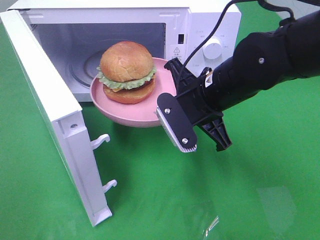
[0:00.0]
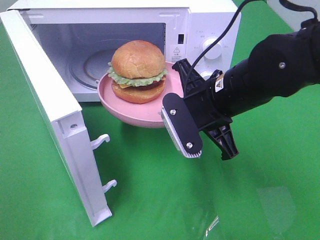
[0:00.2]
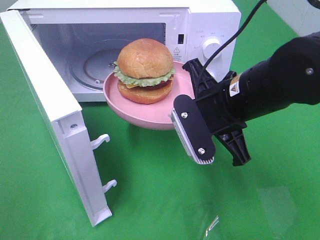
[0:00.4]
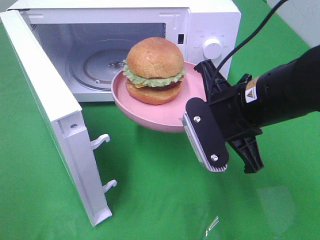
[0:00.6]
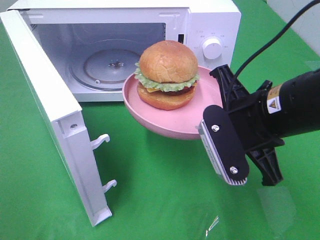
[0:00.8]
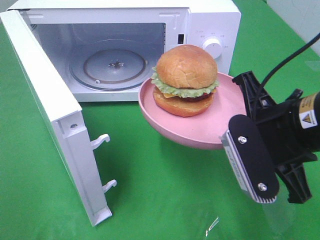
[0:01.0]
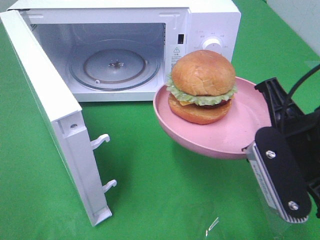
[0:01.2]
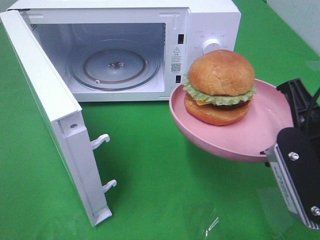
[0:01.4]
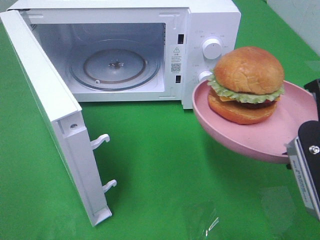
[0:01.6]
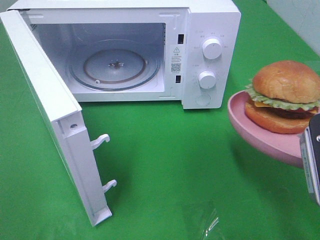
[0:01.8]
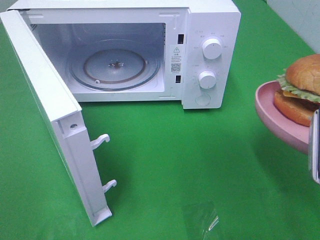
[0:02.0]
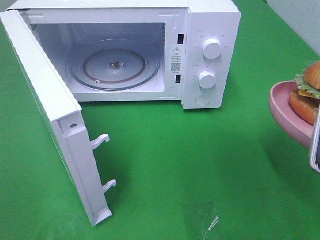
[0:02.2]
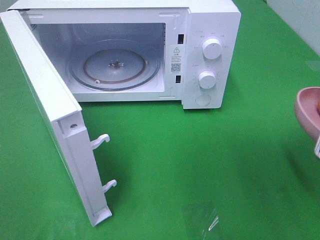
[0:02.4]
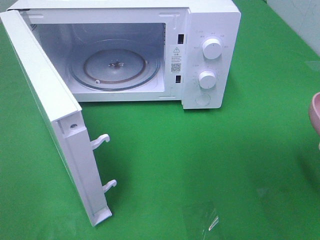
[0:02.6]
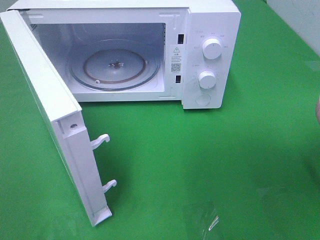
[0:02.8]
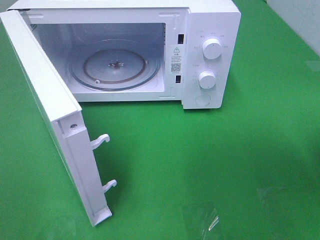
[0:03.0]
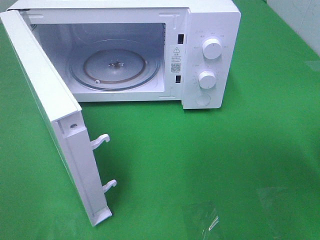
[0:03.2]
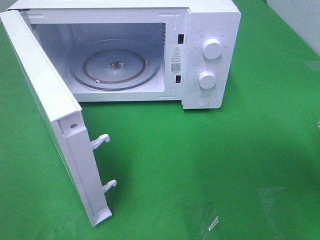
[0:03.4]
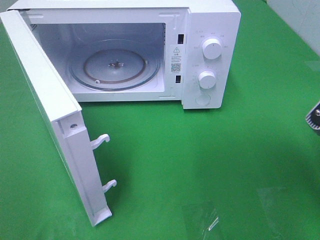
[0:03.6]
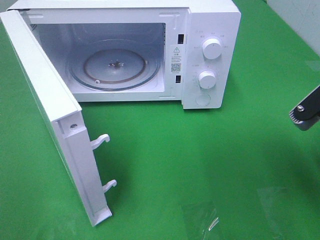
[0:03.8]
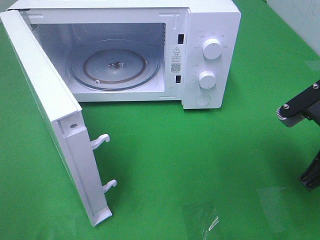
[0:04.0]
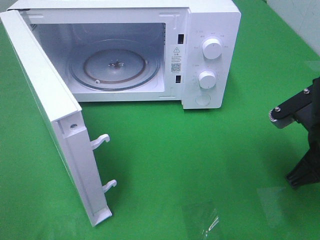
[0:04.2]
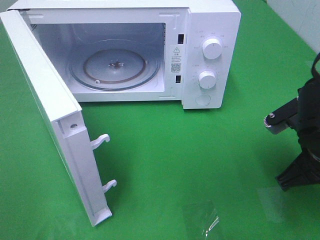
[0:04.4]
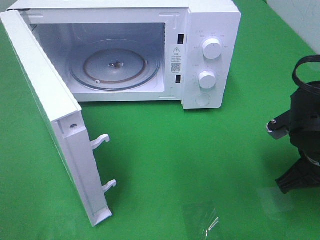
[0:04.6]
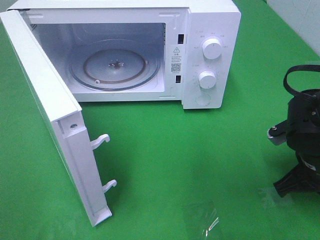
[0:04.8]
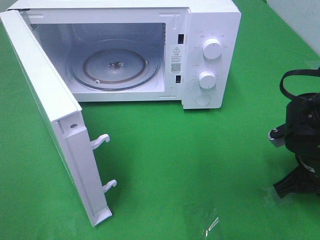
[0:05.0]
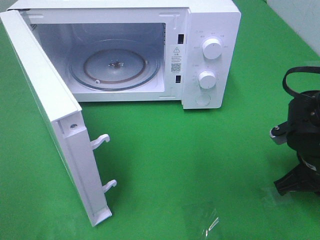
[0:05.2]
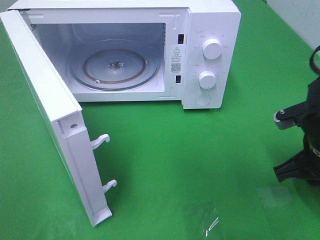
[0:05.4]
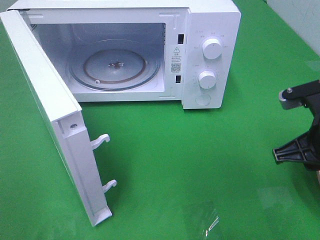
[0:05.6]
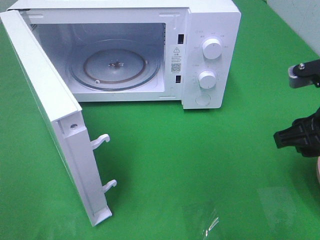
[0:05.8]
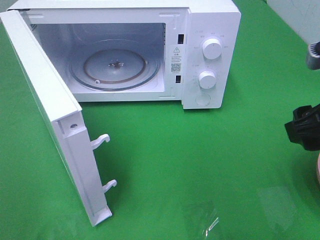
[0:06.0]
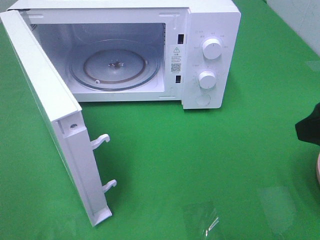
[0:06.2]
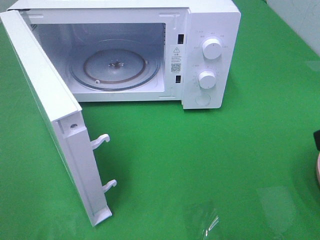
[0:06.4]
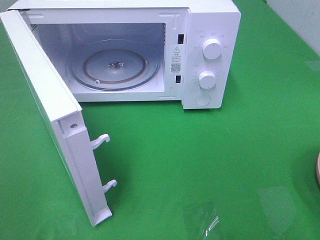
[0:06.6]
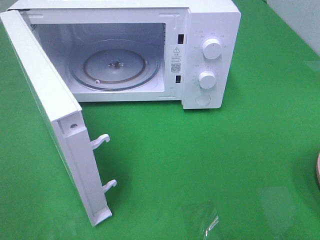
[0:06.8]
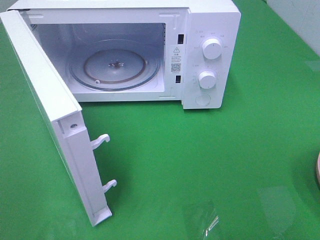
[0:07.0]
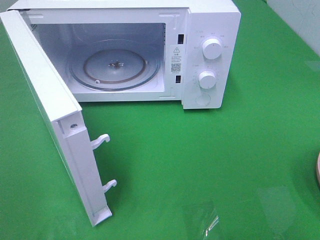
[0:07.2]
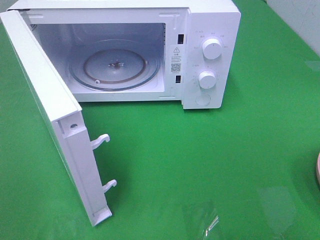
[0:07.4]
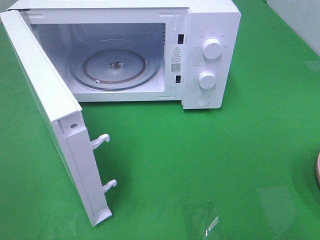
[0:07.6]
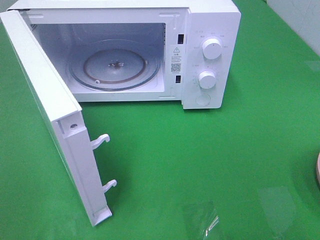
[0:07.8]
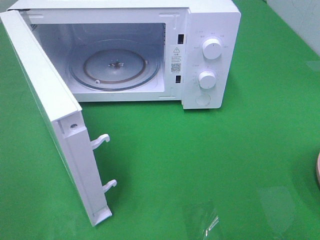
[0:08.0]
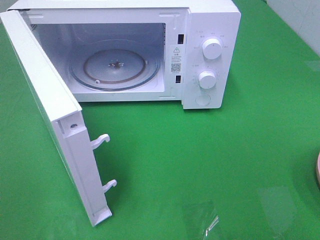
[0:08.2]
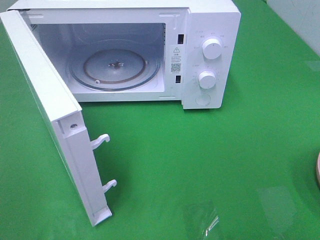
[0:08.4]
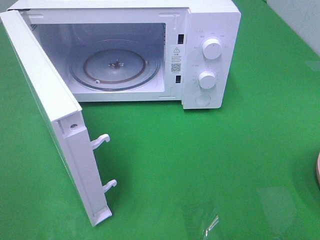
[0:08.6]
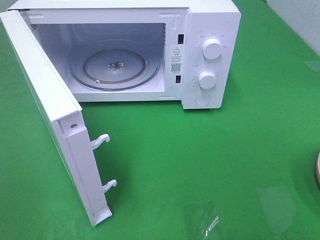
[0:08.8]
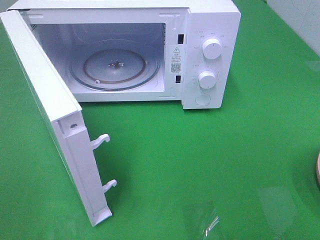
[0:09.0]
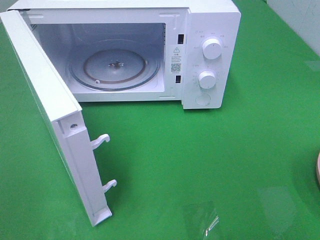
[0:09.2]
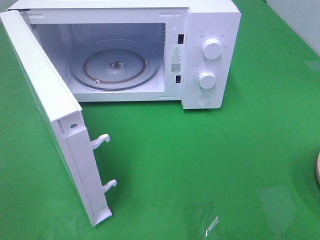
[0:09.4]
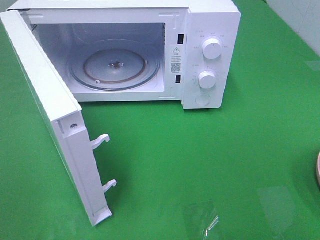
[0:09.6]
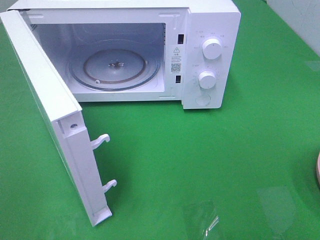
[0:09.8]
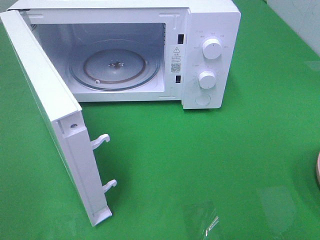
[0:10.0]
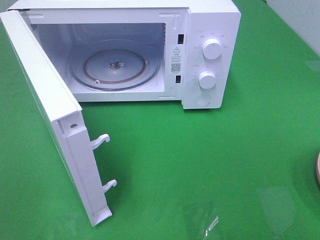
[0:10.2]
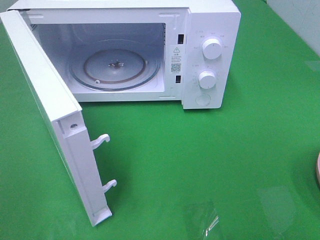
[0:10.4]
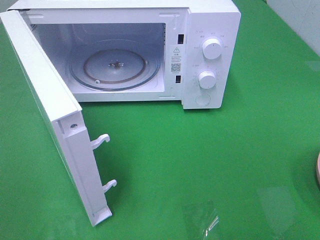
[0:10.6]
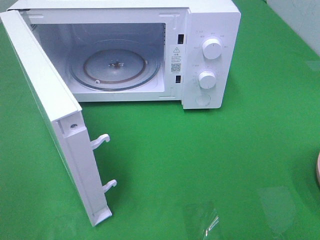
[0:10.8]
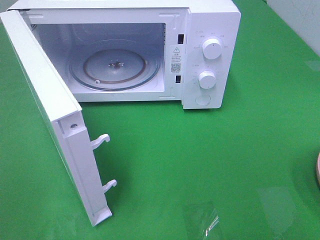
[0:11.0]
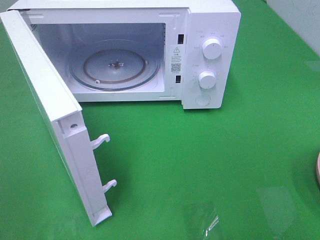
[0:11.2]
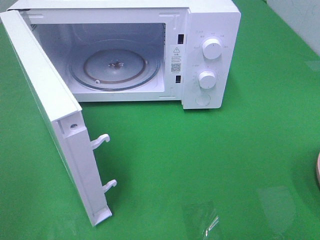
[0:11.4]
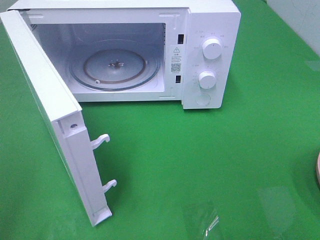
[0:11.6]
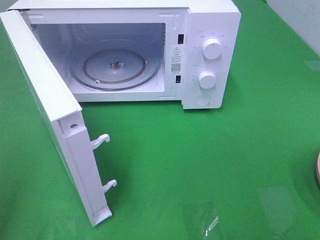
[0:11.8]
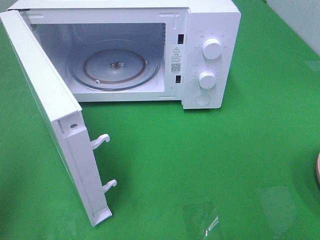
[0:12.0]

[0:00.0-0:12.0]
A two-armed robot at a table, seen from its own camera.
Task of the whole recording: Heat the burger.
Step, 0:00.0 to 0:05.2: Right hand: place the plate on the table.
0:00.0 to 0:01.6: The right gripper moves backward and to the right, about 20 cm.
0:03.0 to 0:04.4: The right gripper moves downward and forward, approximately 10 cm.
0:04.4 to 0:06.0: The right gripper is displaced upward by approximately 10 cm, and opens.
0:06.0 to 0:07.6: The right gripper shifts roughly 15 cm backward and to the right.
0:09.0 to 0:10.4: Both grippers stay about where they are.

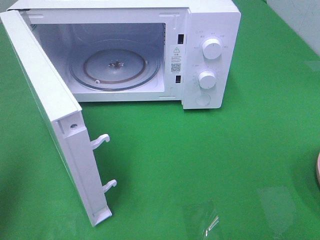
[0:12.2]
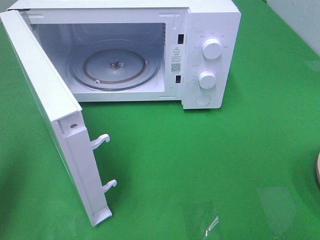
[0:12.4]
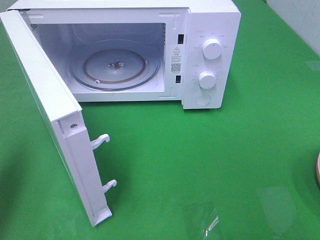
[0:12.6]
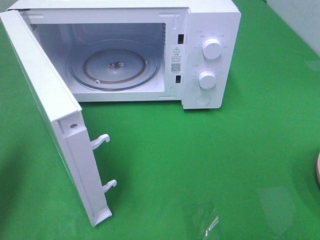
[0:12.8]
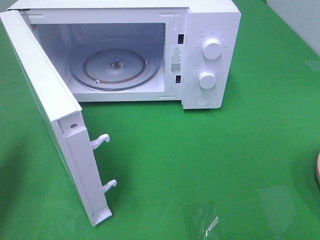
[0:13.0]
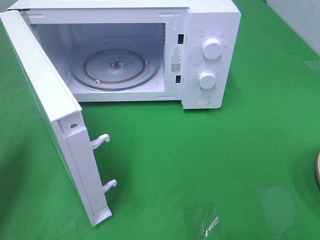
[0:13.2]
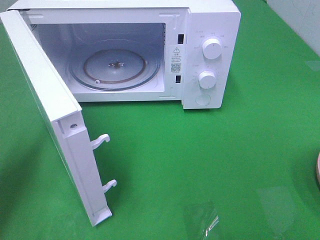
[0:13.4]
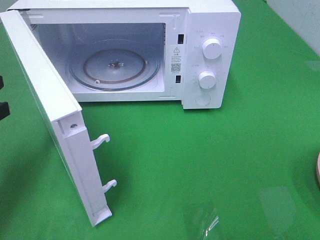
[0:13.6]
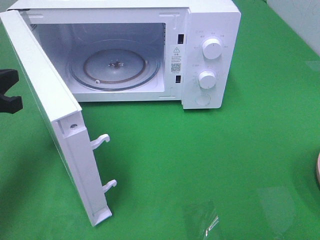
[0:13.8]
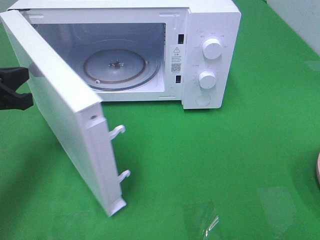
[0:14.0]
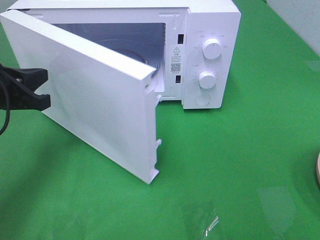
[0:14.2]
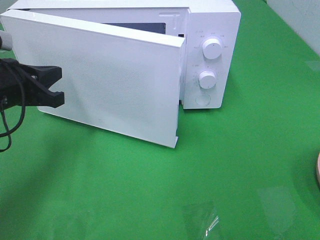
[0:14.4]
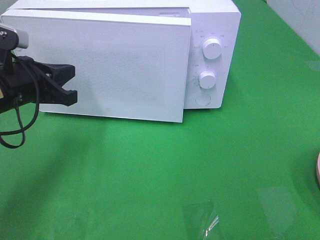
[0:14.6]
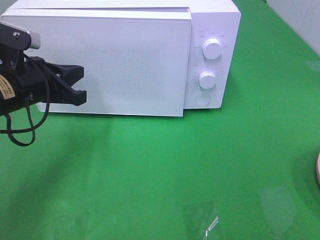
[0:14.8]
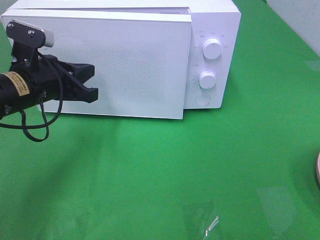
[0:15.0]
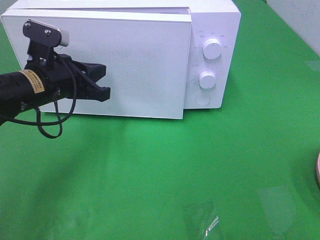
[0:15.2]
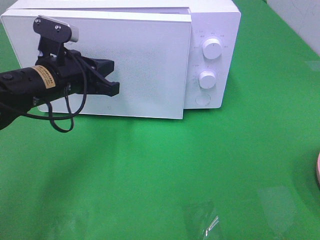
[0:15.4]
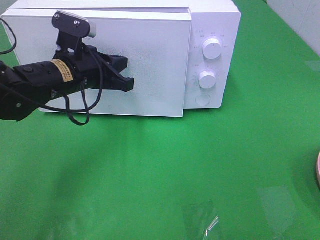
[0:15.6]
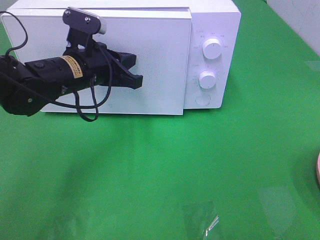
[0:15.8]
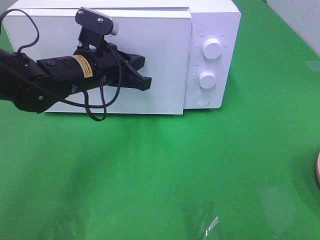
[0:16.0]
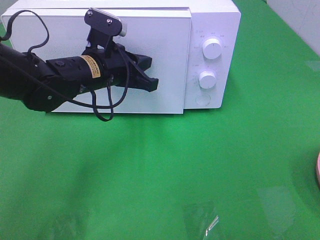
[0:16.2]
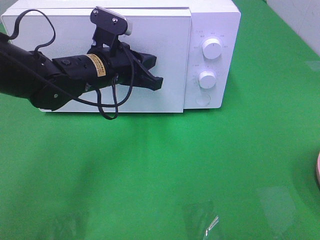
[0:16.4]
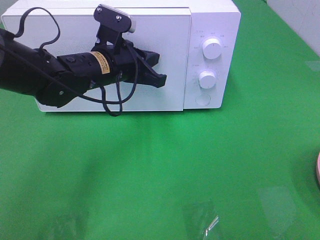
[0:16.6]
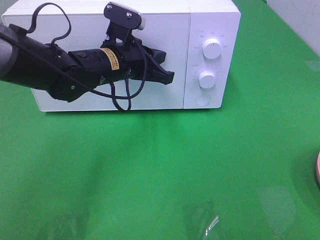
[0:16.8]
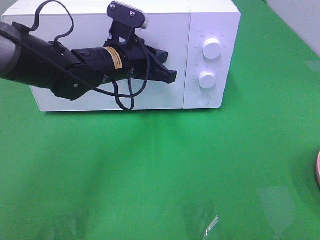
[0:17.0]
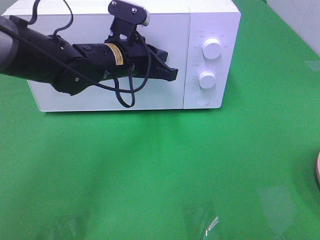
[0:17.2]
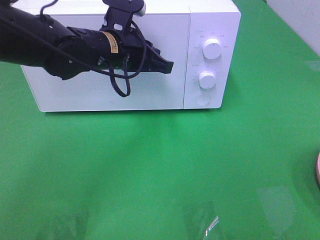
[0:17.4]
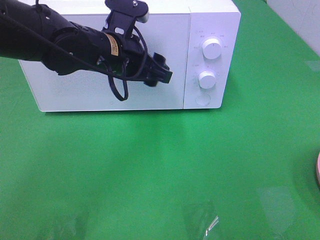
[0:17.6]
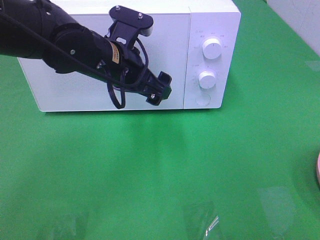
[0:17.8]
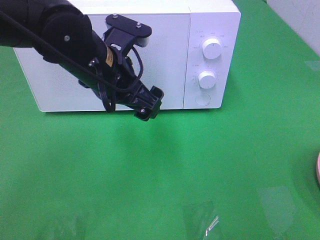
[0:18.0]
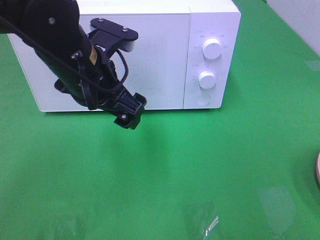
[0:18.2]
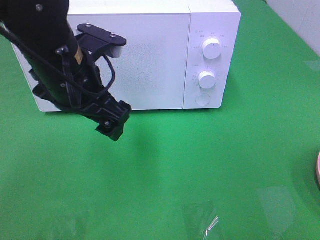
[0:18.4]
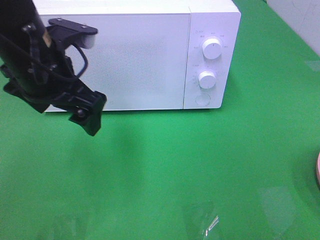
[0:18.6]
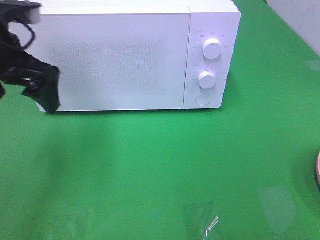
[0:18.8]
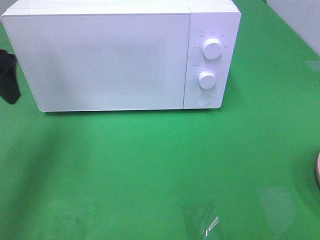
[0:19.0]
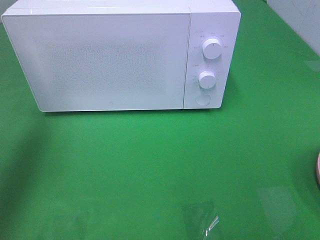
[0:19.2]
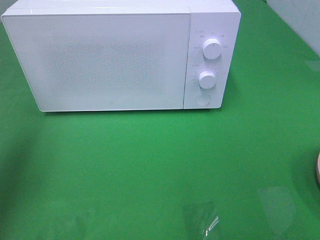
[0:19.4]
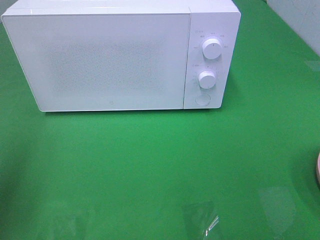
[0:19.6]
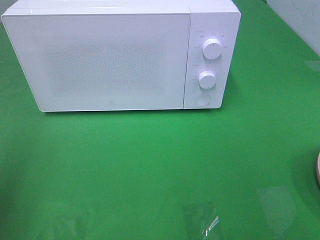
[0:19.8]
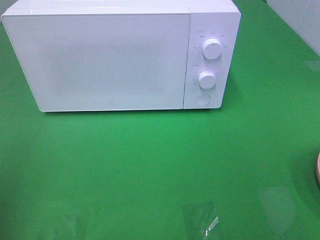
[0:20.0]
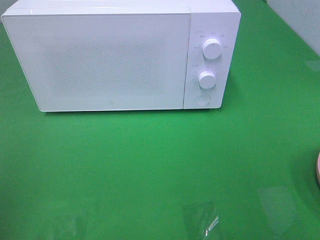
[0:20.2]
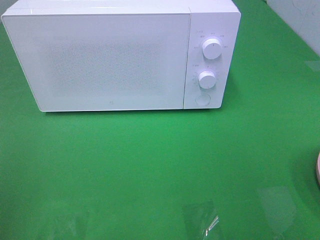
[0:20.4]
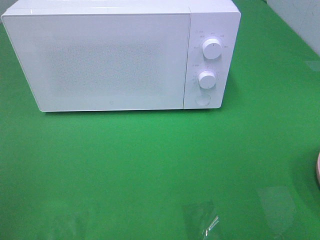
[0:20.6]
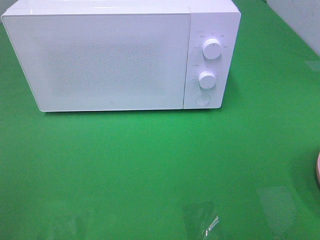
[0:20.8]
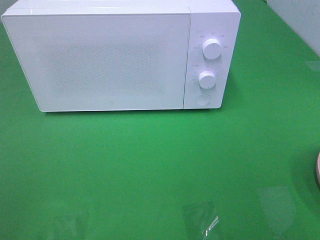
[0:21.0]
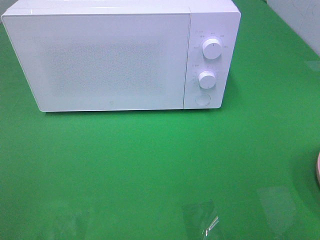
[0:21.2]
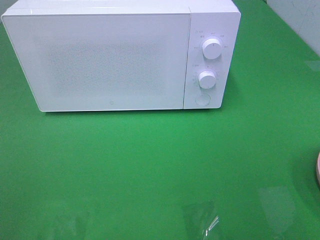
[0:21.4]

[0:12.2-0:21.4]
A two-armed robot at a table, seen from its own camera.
Task of the whole recording: Heat the burger.
Step, 0:12.2 to 0:17.4: Left hand: close the microwave door.
0:12.2 to 0:13.8: The left gripper heads downward and forward, covering approximately 15 cm.
0:13.8 to 0:15.2: The left gripper heads to the right and forward, covering roughly 15 cm.
0:15.2 to 0:16.8: The left gripper heads to the right and forward, covering approximately 10 cm.
0:16.8 to 0:18.4: The left gripper is displaced backward and upward by approximately 10 cm, and opens.
0:18.4 to 0:19.8: The left gripper shifts roughly 25 cm to the left and backward.

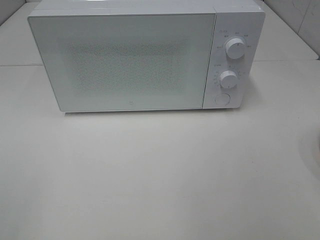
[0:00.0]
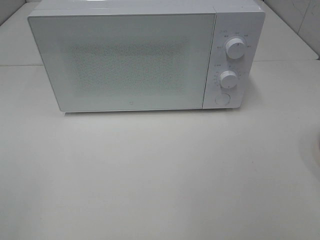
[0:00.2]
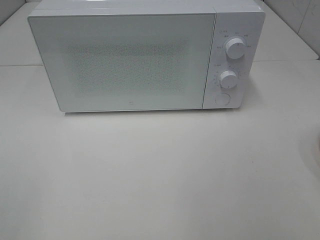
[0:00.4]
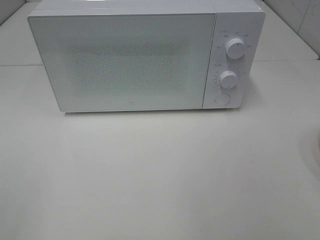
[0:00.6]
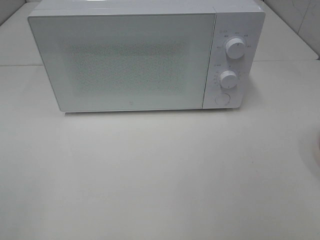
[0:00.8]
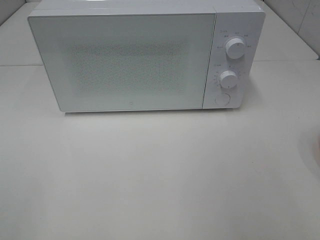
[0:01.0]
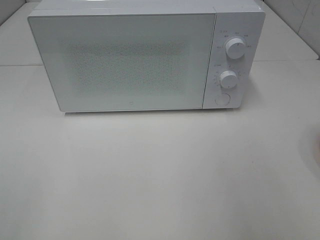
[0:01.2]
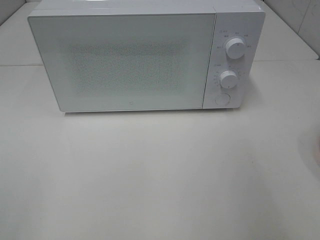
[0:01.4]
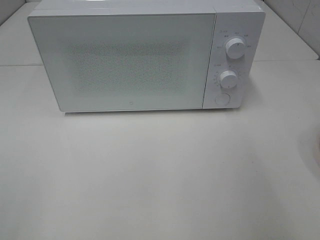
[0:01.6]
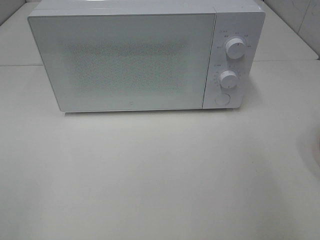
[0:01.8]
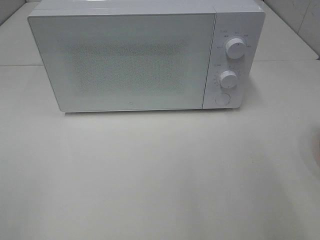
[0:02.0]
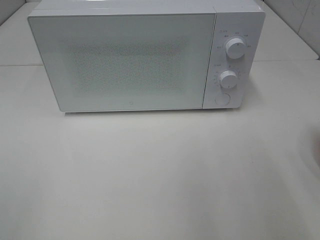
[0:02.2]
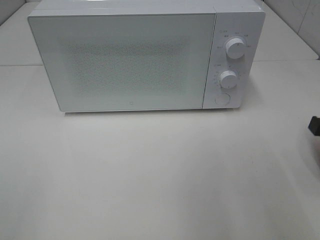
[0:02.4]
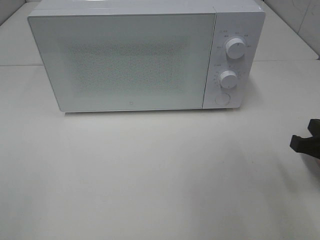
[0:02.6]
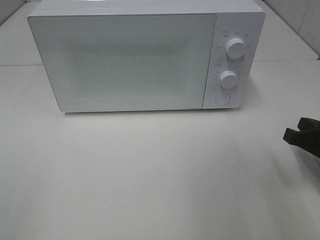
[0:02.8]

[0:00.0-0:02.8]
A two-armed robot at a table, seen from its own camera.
Task of the whole recording: Heat the burger.
0:01.4 to 0:02.8: The right gripper moves downward, approximately 15 cm.
